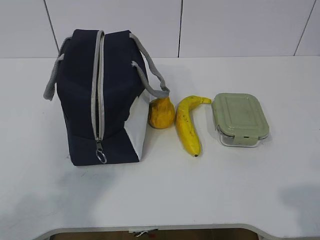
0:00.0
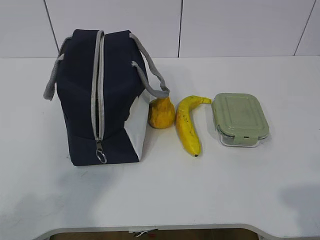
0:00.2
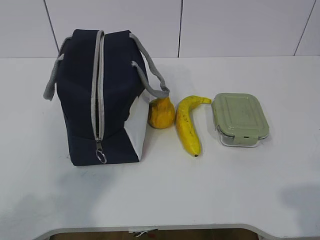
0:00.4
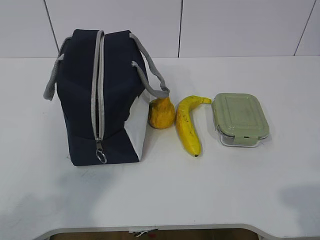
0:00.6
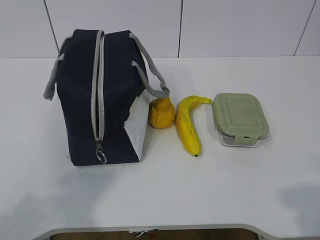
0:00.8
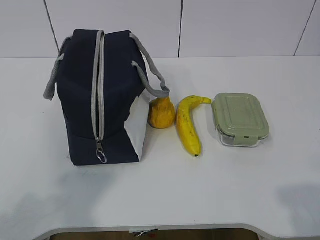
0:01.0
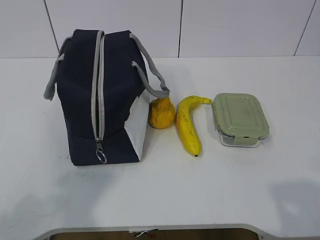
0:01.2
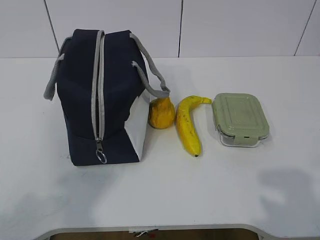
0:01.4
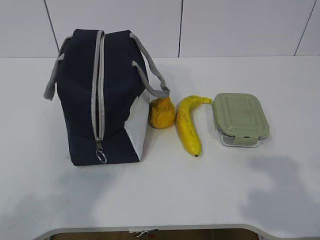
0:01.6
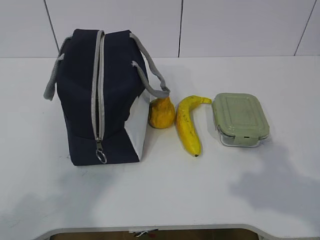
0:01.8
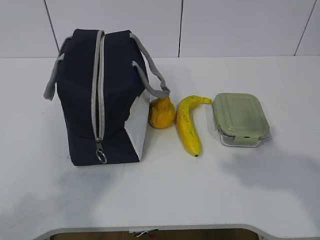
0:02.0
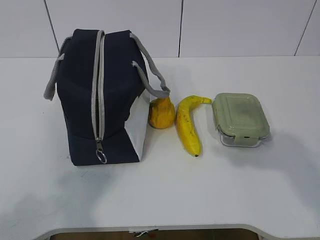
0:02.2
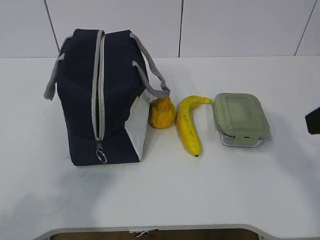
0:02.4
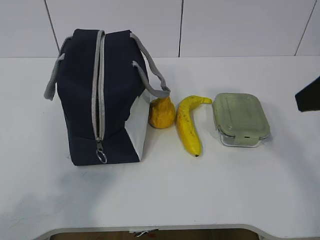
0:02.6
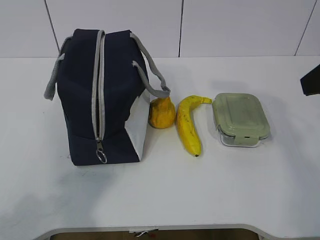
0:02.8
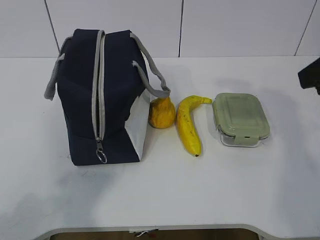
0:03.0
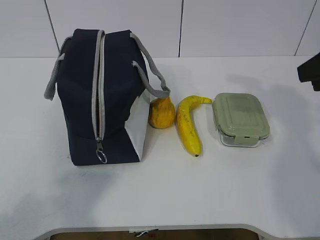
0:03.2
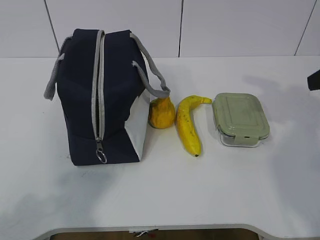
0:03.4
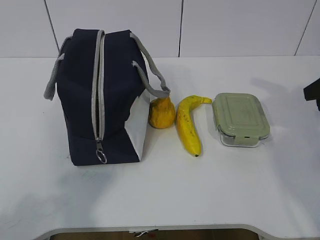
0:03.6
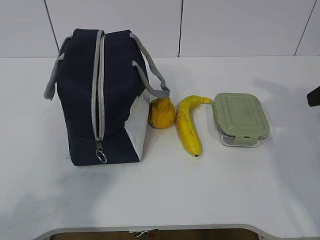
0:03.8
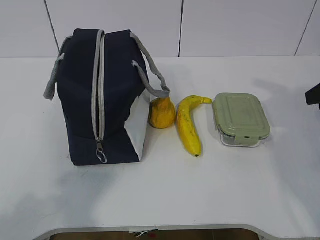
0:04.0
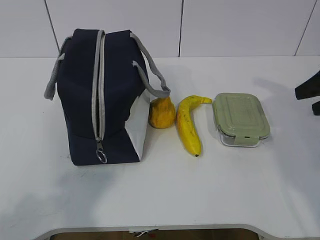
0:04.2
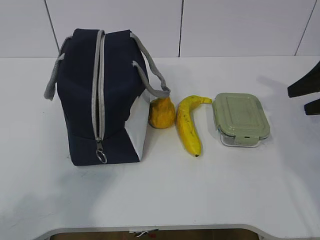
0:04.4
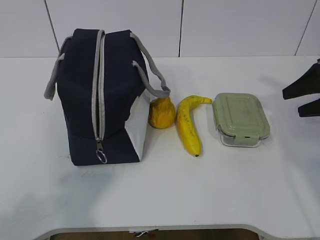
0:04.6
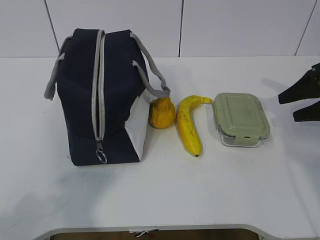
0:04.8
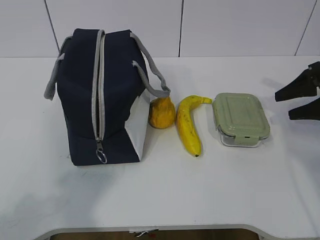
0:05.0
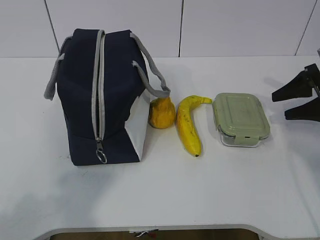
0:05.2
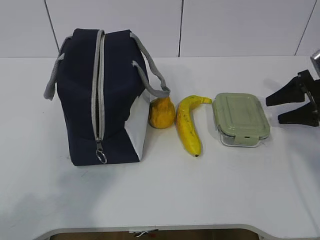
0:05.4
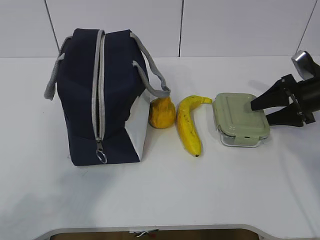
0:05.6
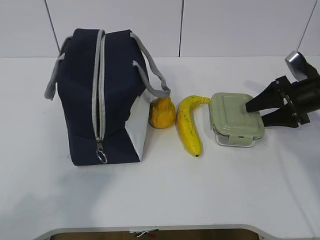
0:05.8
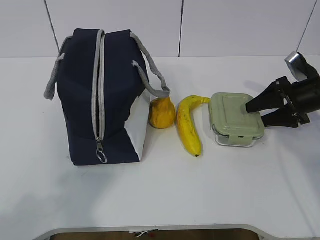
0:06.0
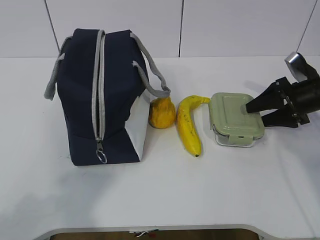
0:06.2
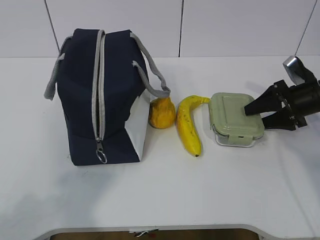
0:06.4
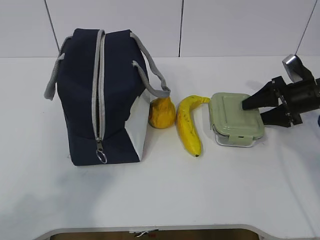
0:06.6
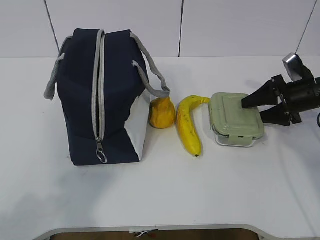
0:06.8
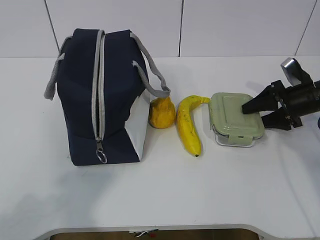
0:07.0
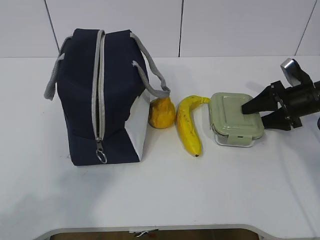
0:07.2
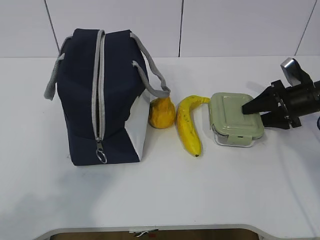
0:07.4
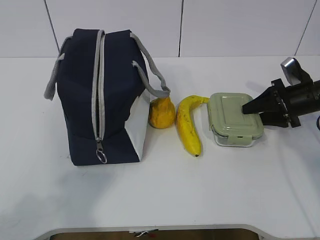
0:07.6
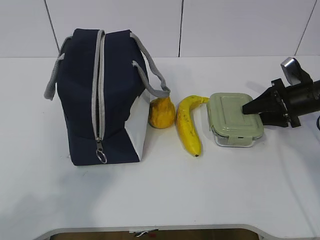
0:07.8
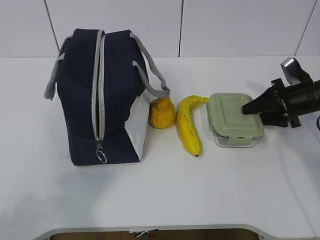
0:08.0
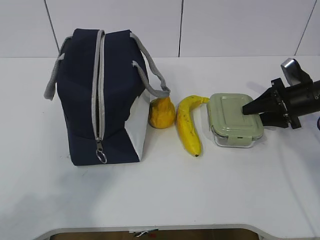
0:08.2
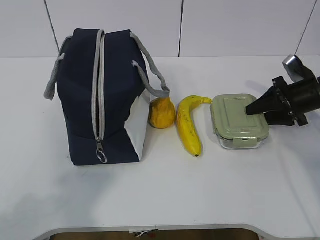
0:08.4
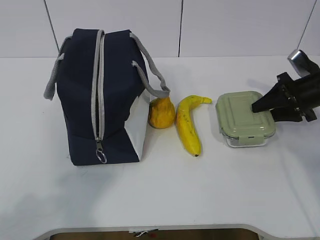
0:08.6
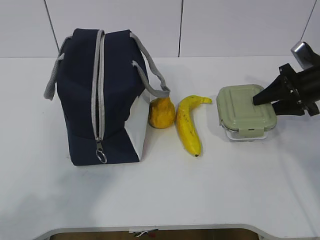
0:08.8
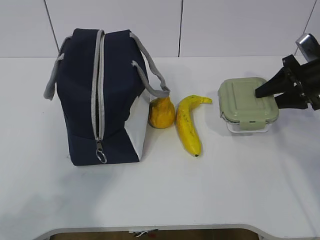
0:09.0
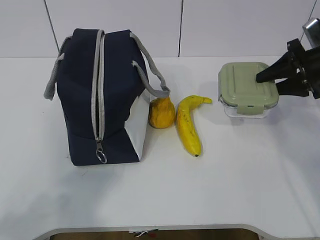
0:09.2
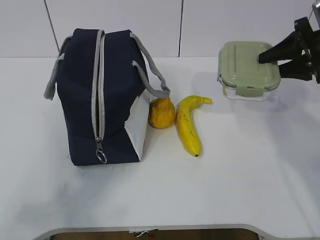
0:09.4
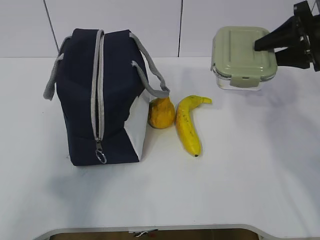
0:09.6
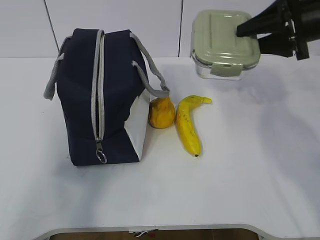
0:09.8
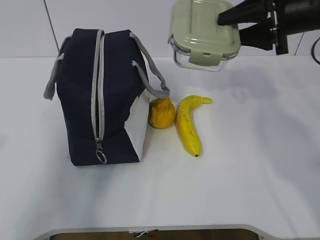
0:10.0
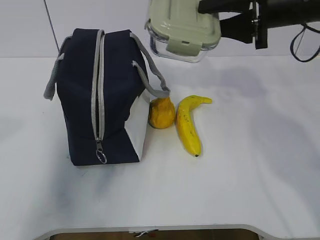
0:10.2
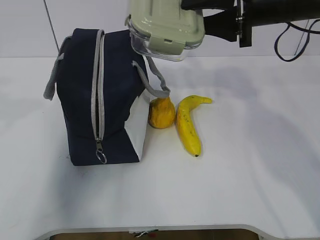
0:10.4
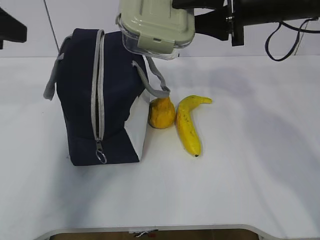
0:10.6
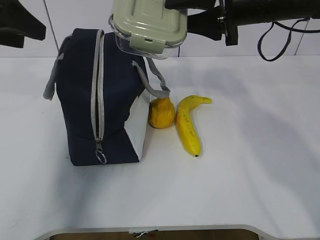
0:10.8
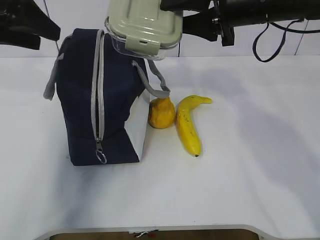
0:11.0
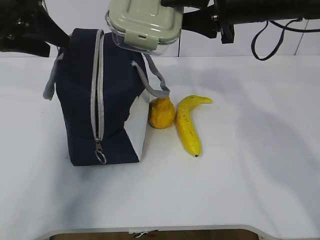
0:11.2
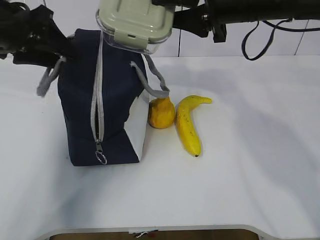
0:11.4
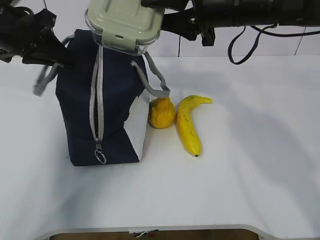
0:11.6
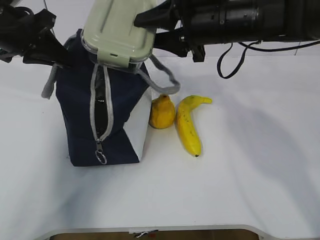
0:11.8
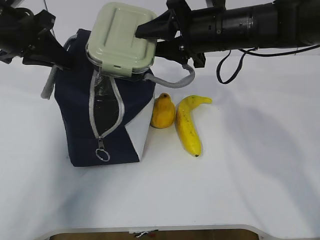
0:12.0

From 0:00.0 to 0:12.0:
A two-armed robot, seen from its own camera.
Step, from 0:00.0 to 0:06.8: Grab the lunch box with your right hand.
Step, from 0:07.0 to 0:09.6: Grab the lunch bag with your left hand.
From 0:01.6 to 0:03.0: The right gripper shifts approximately 20 cm forward.
From 0:03.0 to 0:04.4: The right gripper is displaced downward, forward and to the right by about 15 cm.
From 0:04.4 to 0:06.0: The right gripper is displaced downward and forward by some 10 cm.
From 0:06.0 to 0:07.6: The grippers make only small movements.
From 0:07.6 to 0:09.0: The right gripper moves upward, about 5 cm.
From 0:09.0 to 0:10.4: The left gripper heads forward, covering some 20 cm, and opens up. Meanwhile the right gripper heads to the left and upward, covering approximately 20 cm.
From 0:10.4 to 0:12.0: The right gripper goes about 5 cm to the left. Meanwhile the left gripper heads forward, covering some 15 cm, and closes up.

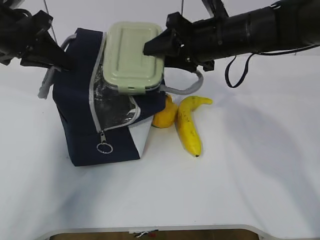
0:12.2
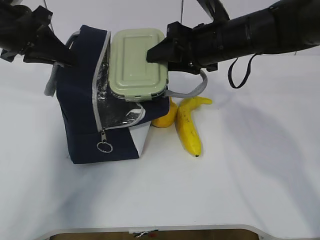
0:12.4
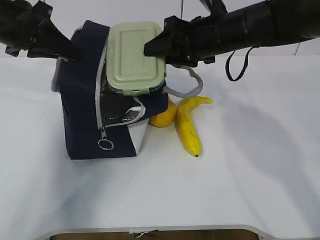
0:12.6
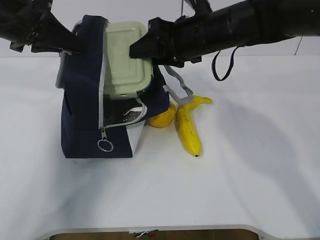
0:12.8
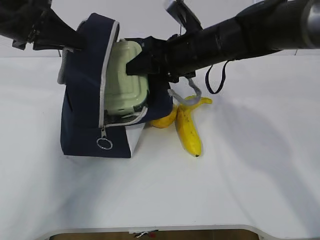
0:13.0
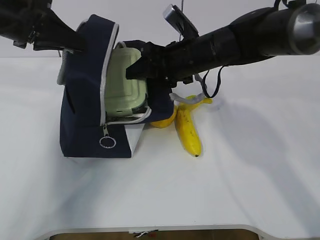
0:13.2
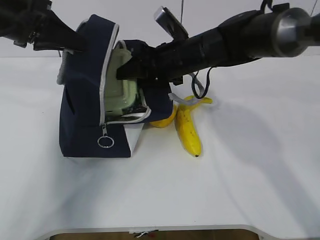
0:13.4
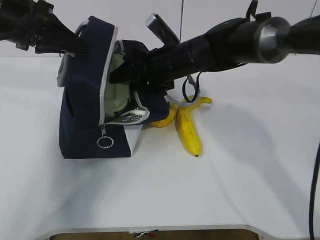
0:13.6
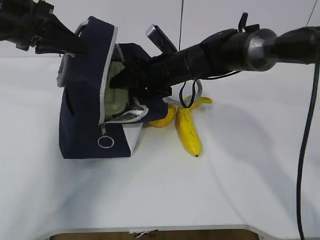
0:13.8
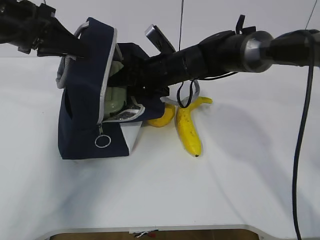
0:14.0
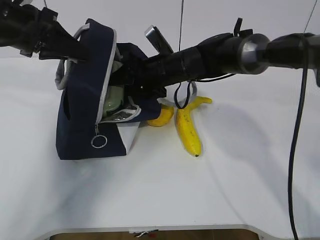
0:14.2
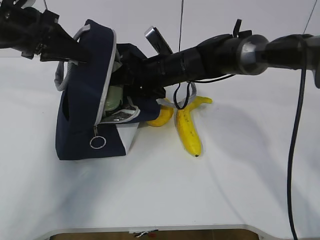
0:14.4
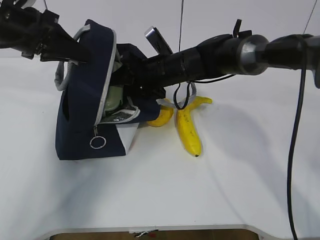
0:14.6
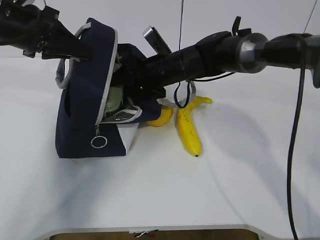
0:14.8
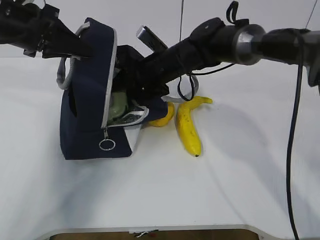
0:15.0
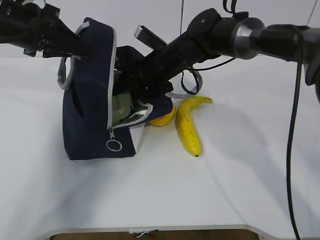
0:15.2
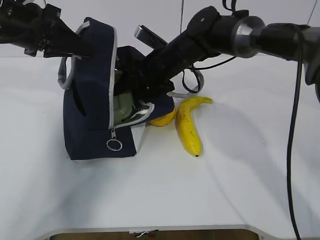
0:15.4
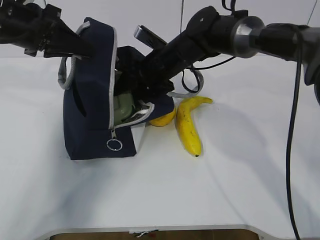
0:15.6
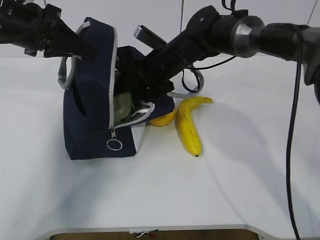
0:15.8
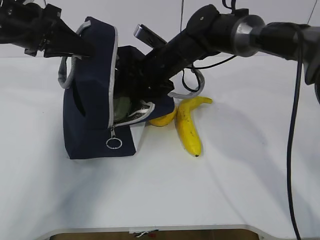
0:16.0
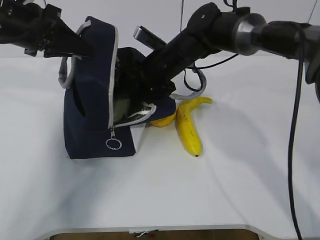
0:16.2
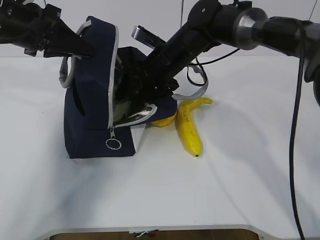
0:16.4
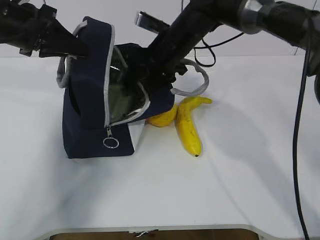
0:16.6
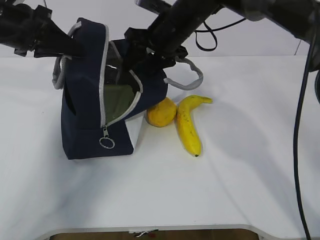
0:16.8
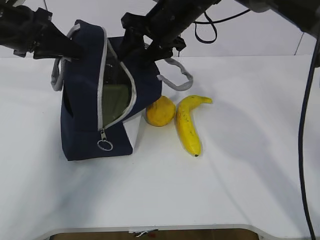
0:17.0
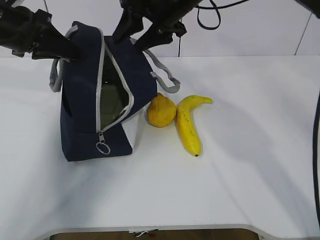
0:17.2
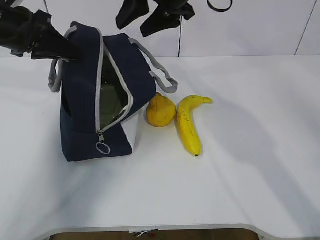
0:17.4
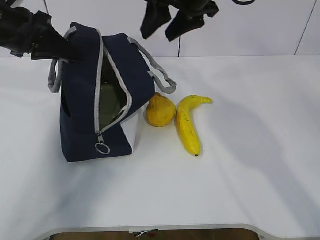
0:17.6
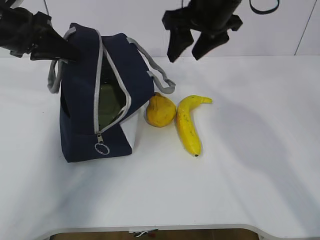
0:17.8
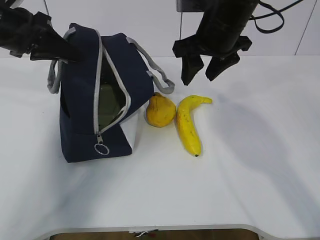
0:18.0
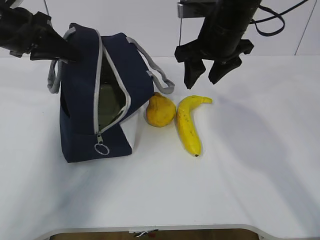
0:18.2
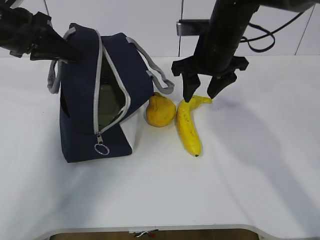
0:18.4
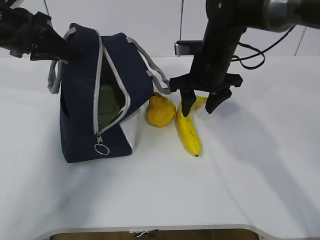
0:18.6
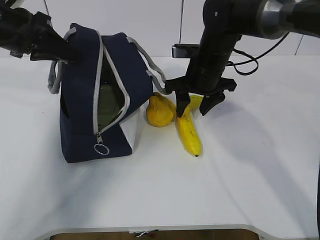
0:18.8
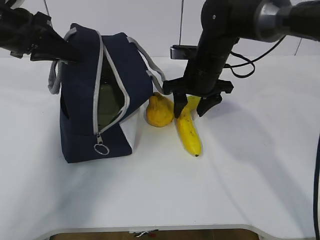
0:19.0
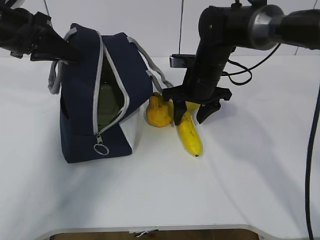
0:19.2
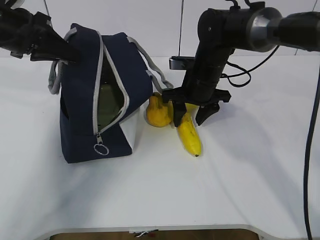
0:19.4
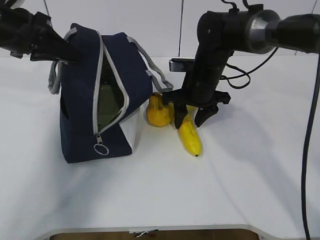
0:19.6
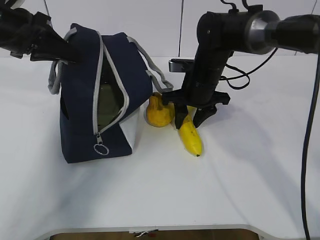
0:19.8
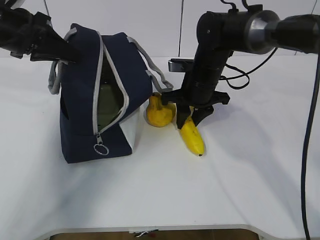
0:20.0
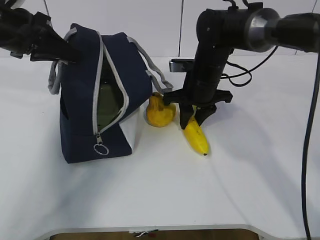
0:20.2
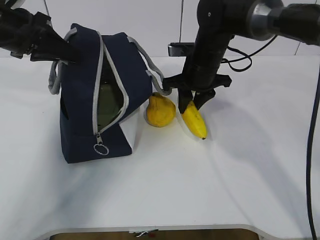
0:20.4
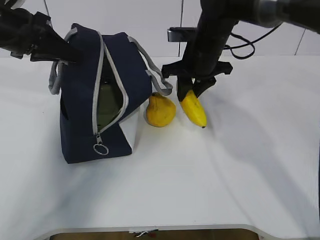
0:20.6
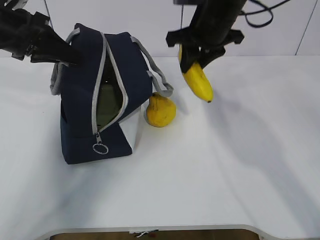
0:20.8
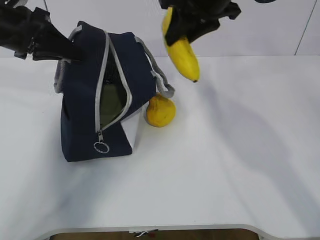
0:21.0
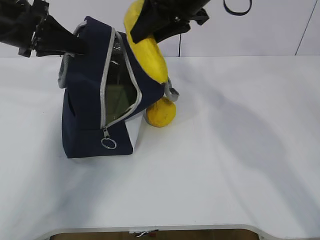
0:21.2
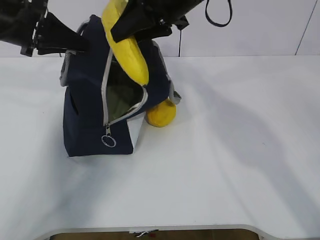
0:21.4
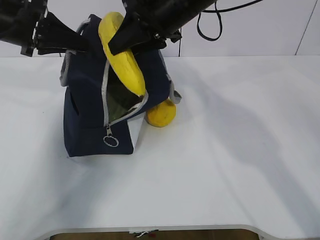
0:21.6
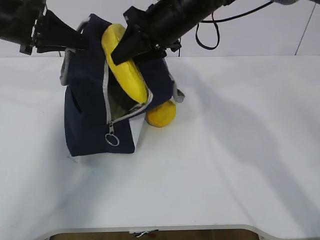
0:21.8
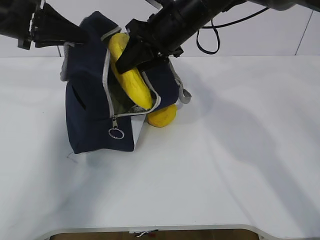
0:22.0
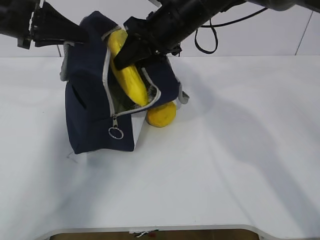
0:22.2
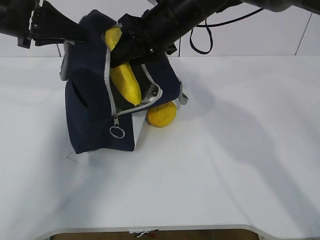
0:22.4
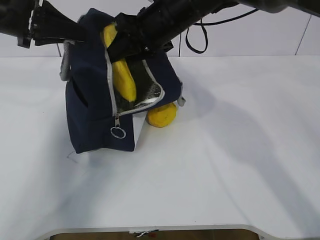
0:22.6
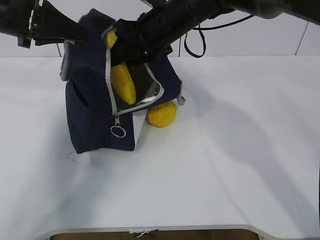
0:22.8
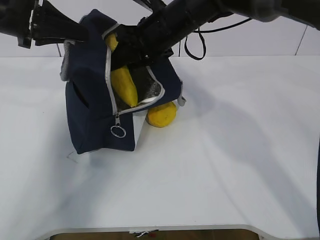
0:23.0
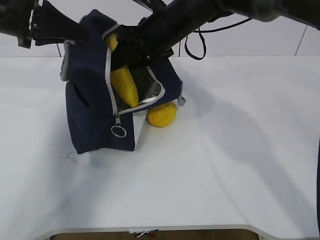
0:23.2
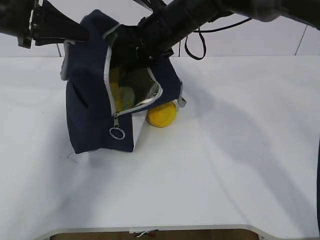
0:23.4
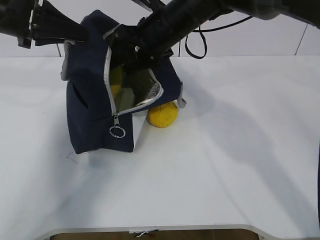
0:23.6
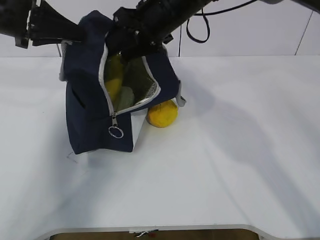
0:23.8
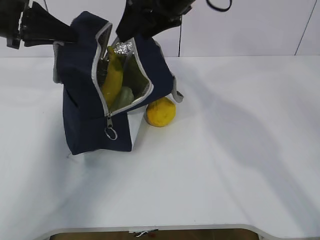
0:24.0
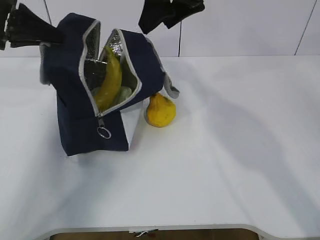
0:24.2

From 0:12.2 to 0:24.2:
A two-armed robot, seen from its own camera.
Step, from 0:13.8 to 0:16.6: Grab the banana with your right hand.
Step, from 0:16.8 to 0:19.6: Place it into the bag with your right hand.
Step, from 0:20.0 to 0:23.0: Grab the pear with your right hand.
From 0:12.2 to 0:13.8: The right gripper goes approximately 10 cm downward, to the left and forward.
From 0:13.8 to 0:15.2: The grippers stay close to where they were, moving slightly.
From 0:15.2 to 0:16.6: The grippers move only a little.
From 0:16.6 to 0:18.2: The right gripper goes roughly 10 cm to the right, upward and backward.
From 0:18.2 to 0:19.8: The right gripper is displaced downward by roughly 10 cm.
From 0:19.8 to 0:21.2: The right gripper heads upward, covering roughly 20 cm.
From 0:21.2 to 0:22.6: The right gripper moves downward, about 5 cm.
From 0:22.6 to 0:24.2: The right gripper travels upward by approximately 10 cm, and opens up.
